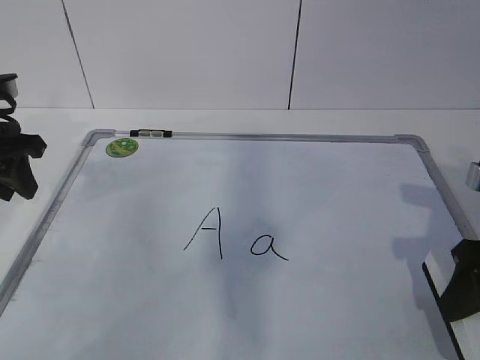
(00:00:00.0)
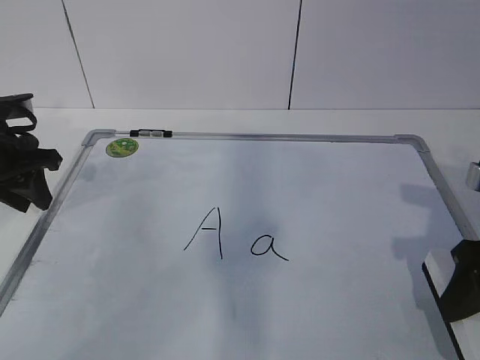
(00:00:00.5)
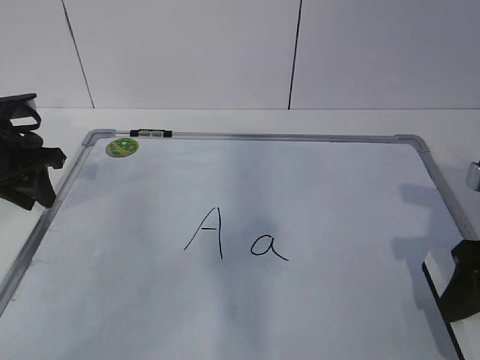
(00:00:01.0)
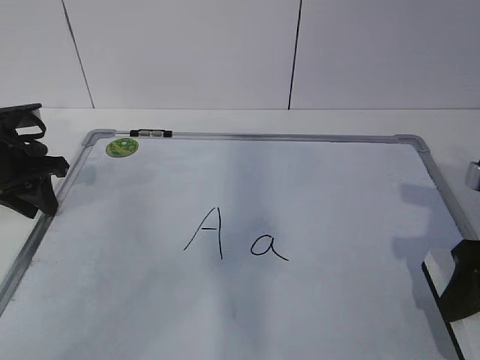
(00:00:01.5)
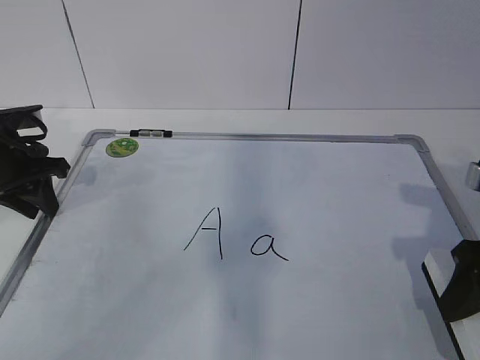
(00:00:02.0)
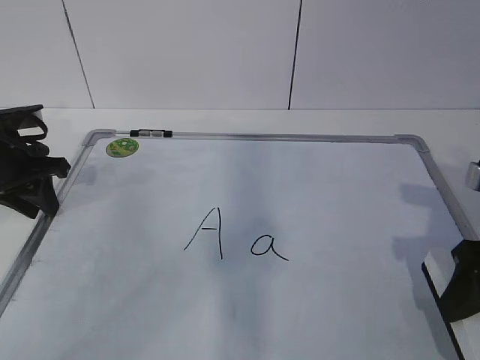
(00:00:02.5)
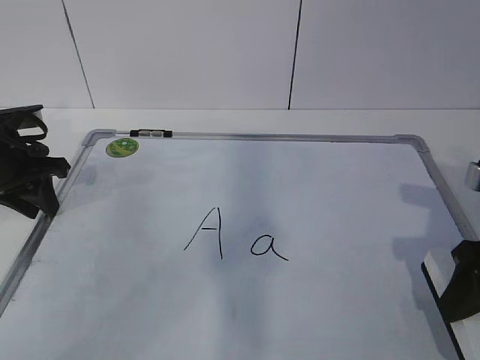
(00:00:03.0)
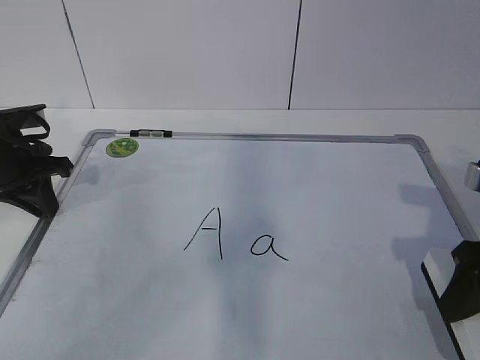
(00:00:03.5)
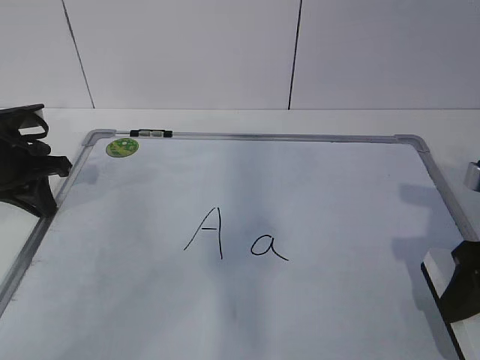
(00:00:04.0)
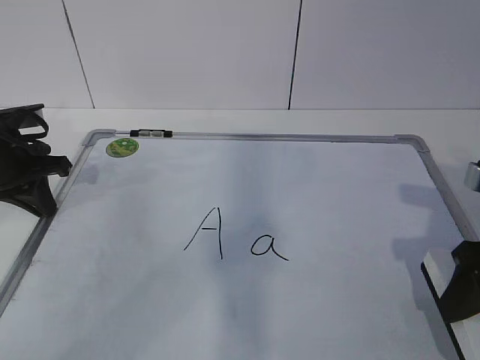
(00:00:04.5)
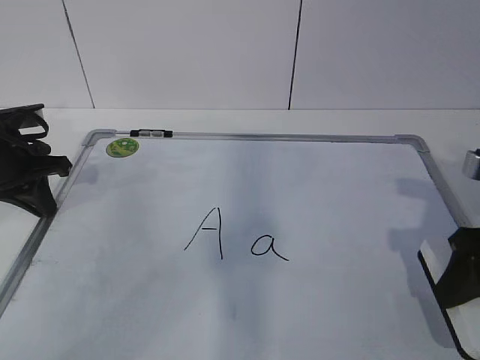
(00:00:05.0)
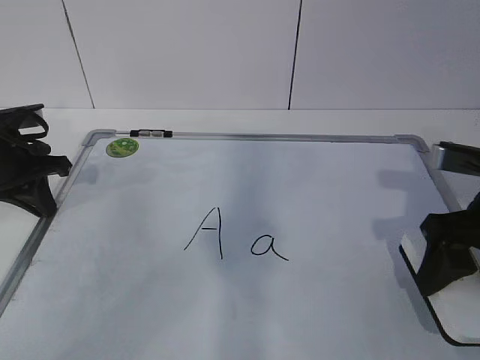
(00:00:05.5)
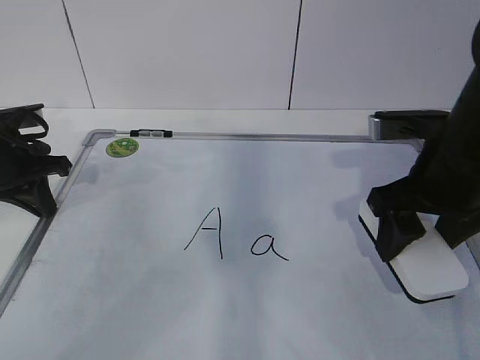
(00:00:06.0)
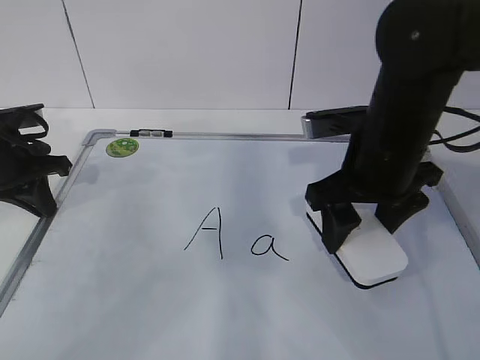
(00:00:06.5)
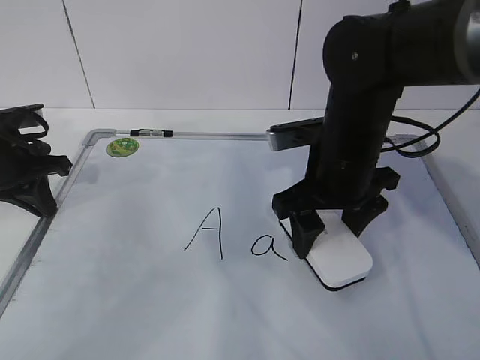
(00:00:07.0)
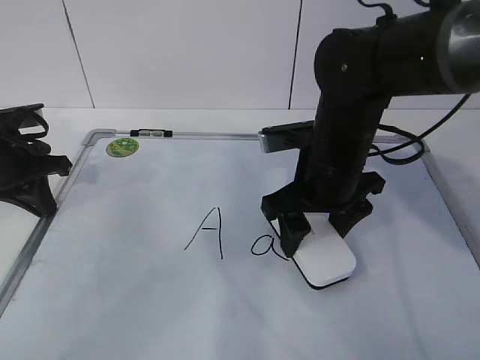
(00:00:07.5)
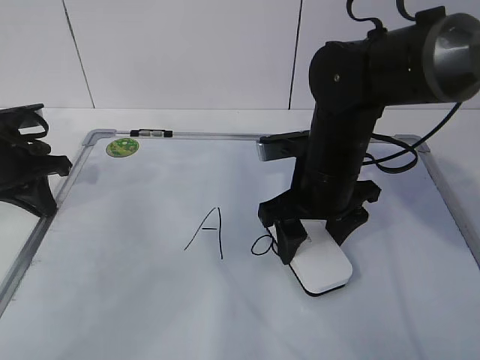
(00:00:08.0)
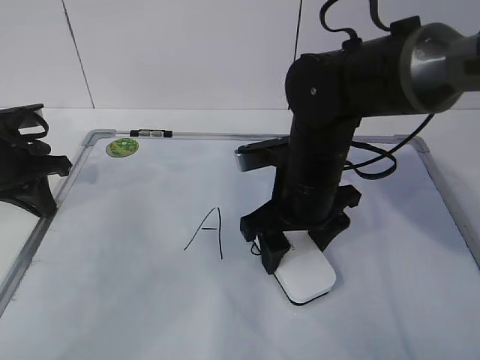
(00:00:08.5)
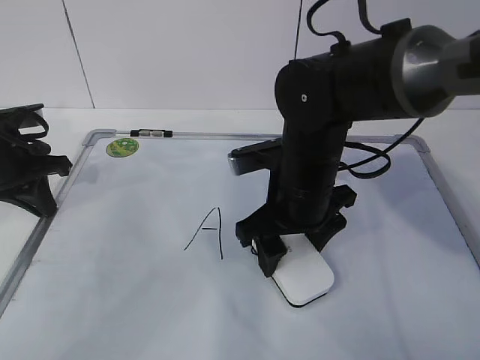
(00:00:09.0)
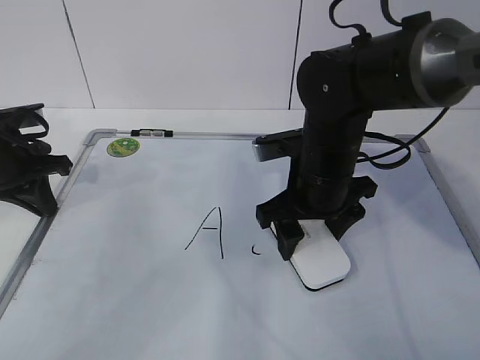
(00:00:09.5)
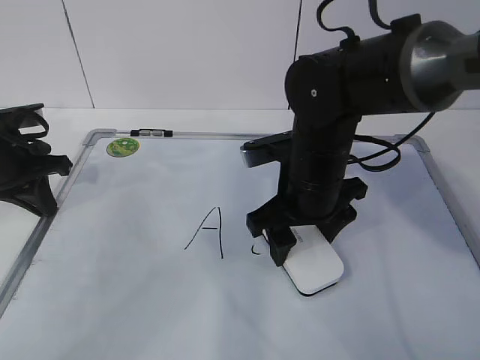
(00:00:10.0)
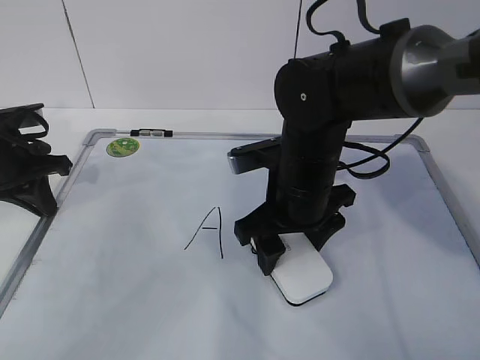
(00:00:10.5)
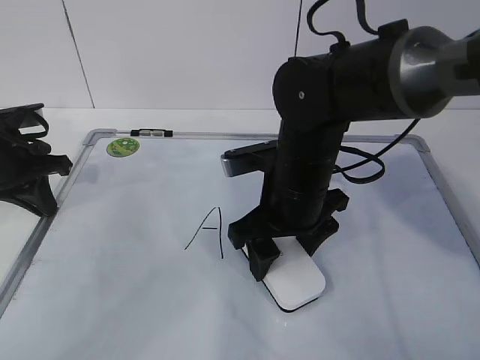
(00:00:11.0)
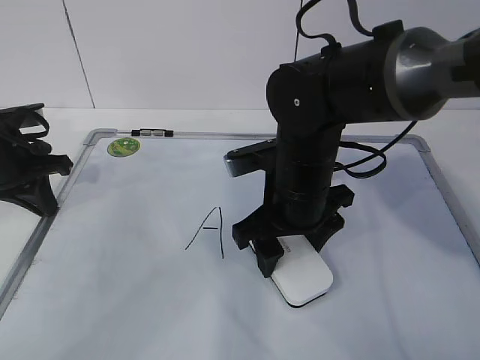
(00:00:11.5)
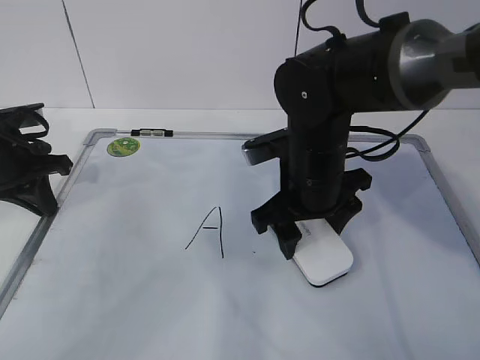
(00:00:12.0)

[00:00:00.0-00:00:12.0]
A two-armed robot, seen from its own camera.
Task of the whole recording: pick up the eraser on the blackboard and erase the letter "a".
Step, 00:00:01.0 to 00:00:07.5: Erase the letter a with your right hand.
00:00:00.0 to 00:00:02.0: The left gripper goes roughly 5 cm downward.
00:00:02.0 to 00:00:04.0: Both grippers stay put.
00:00:04.0 to 00:00:06.0: The right gripper shifts approximately 10 cm forward and to the left.
00:00:06.0 to 00:00:08.0: The right gripper shifts about 10 cm to the left, downward and forward.
00:00:08.0 to 00:00:12.0: The grippers stay close to where they were, moving slightly.

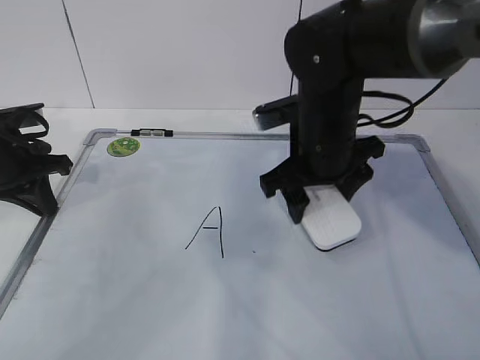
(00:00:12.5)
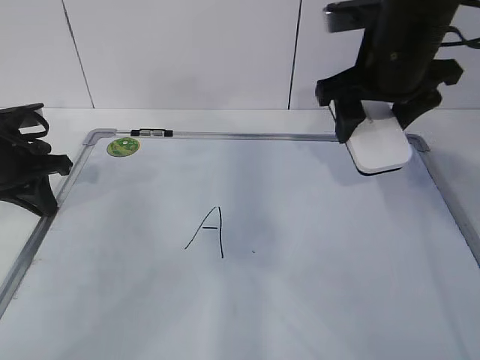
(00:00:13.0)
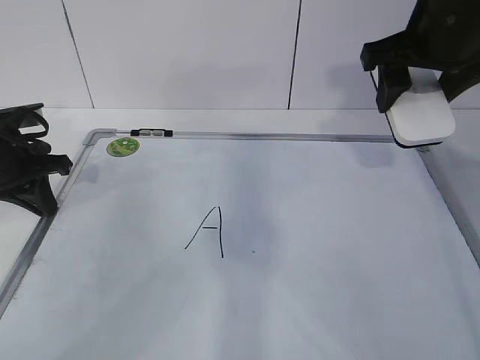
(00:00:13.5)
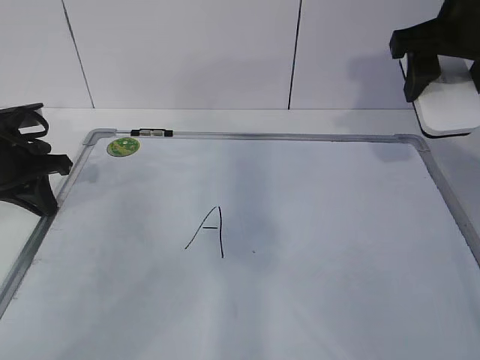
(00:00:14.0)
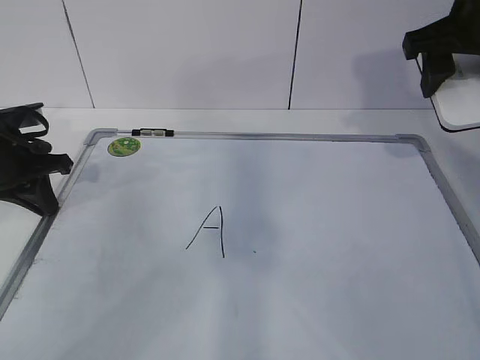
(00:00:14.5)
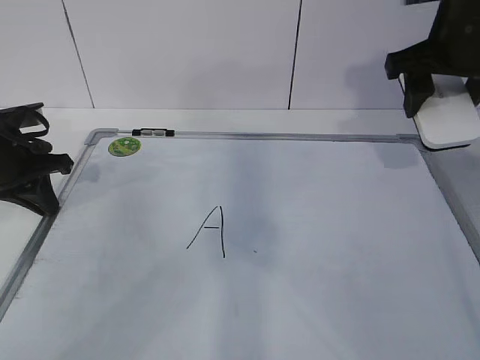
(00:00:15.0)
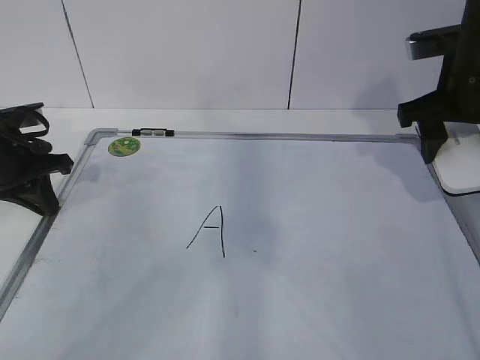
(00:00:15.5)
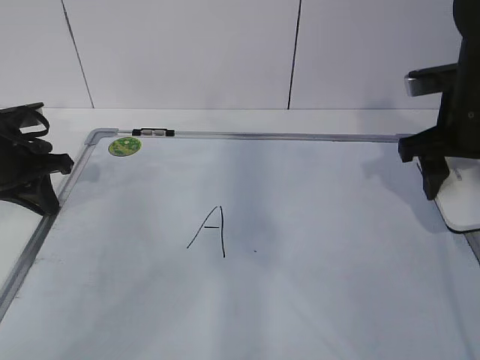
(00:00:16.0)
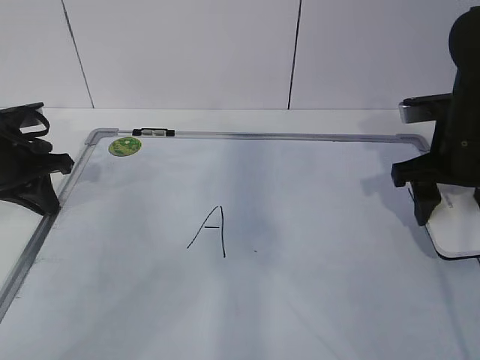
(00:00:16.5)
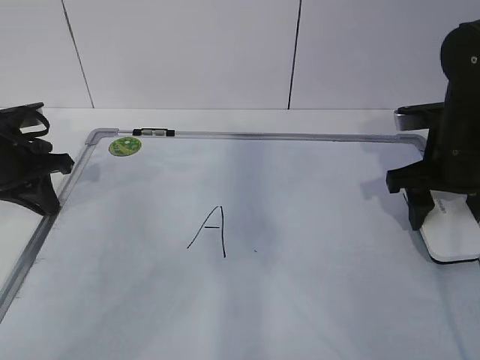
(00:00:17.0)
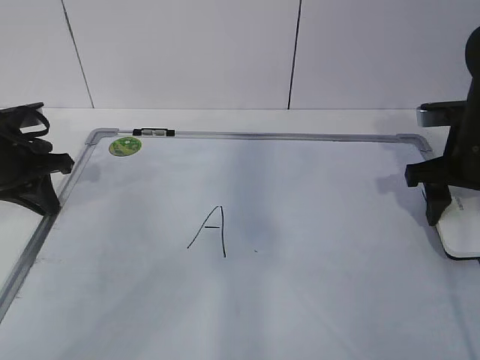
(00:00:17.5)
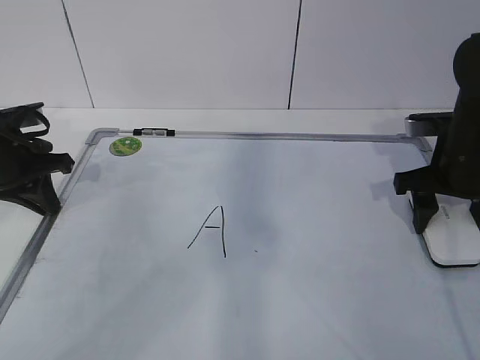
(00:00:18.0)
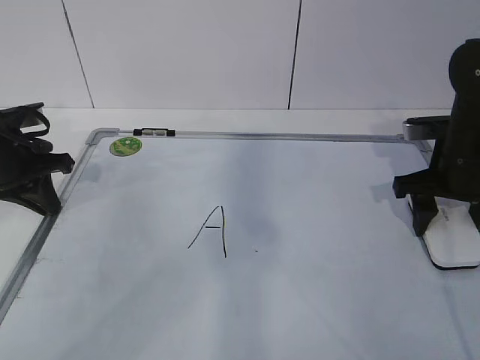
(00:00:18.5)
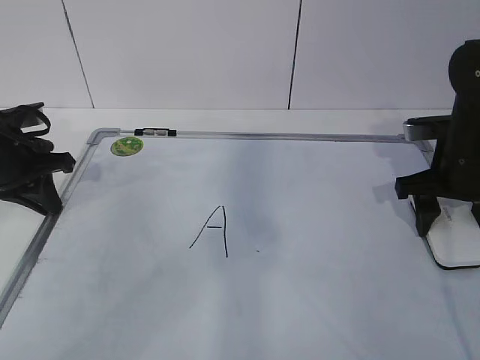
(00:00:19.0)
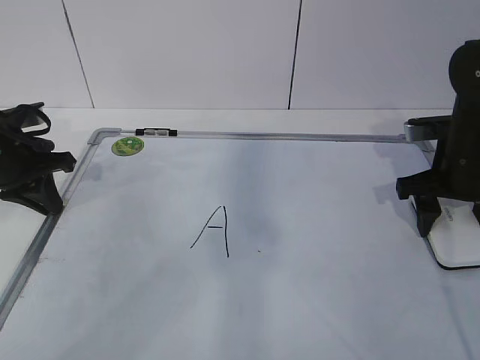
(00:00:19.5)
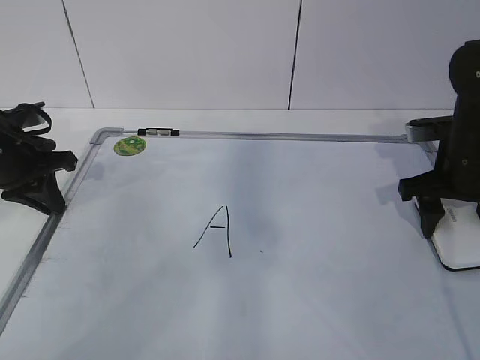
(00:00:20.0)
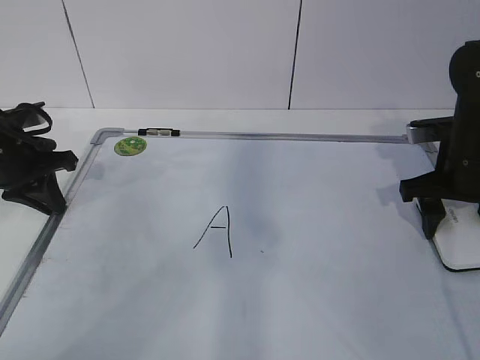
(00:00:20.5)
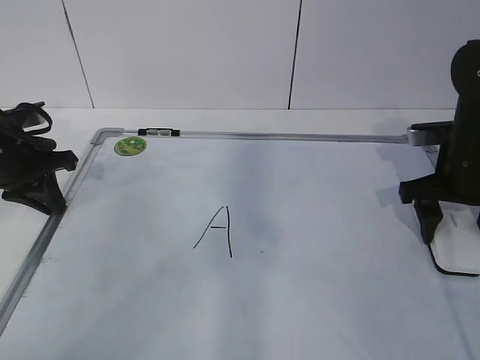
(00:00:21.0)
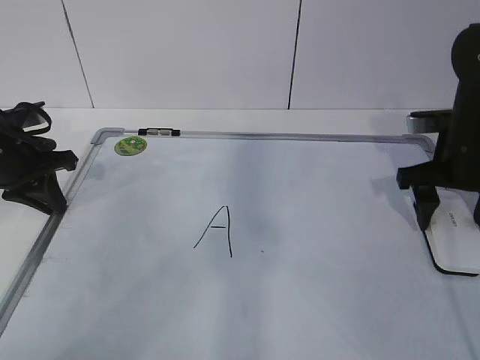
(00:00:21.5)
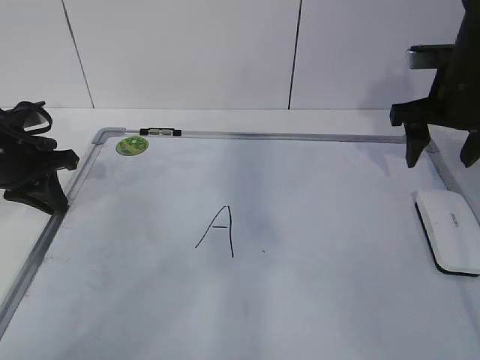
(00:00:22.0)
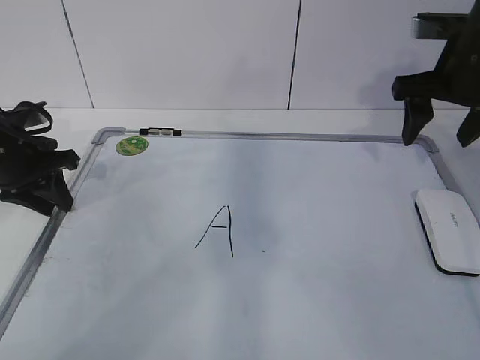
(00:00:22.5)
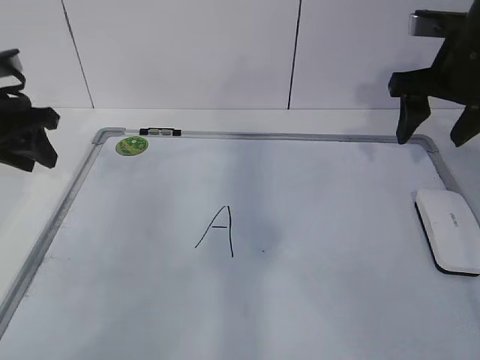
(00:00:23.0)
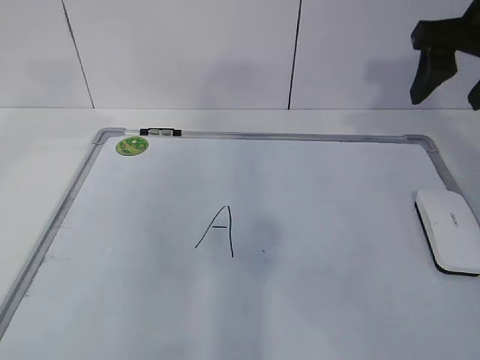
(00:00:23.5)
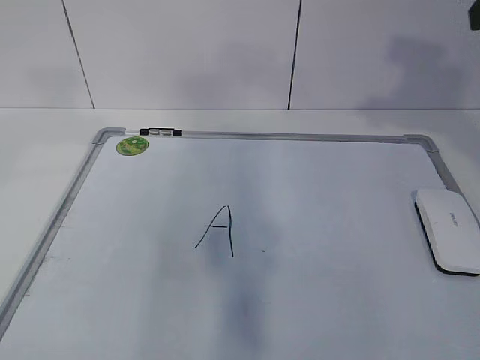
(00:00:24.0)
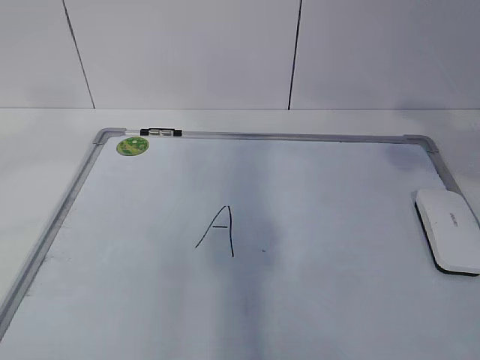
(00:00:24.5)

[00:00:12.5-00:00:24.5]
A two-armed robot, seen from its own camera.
Task of the whole recording: pick up the eraser on the blackboard and erase the letter "a".
Step, 00:00:12.5 to 00:00:15.5: Put down the eraser with your right hand.
00:00:12.5 to 00:00:14.5: The right gripper heads to the right and upward, covering approximately 20 cm.
00:00:14.5 to 00:00:16.5: The right gripper is displaced downward by some 10 cm.
00:00:16.5 to 00:00:18.5: The grippers move only a little.
00:00:18.5 to 00:00:20.5: Both grippers stay about where they are.
00:00:20.5 to 00:00:22.5: The right gripper moves upward, approximately 10 cm, and opens up.
00:00:22.5 to 00:00:24.5: The left gripper shifts some 35 cm upward and backward, and opens, while the right gripper moves backward and upward, some 25 cm, and opens up.

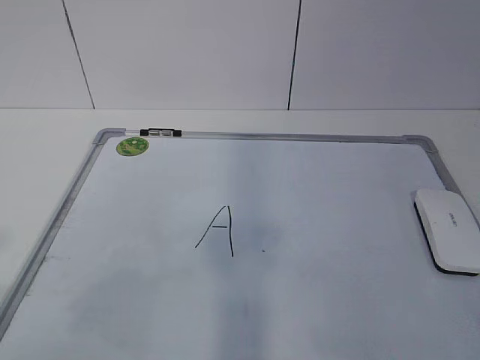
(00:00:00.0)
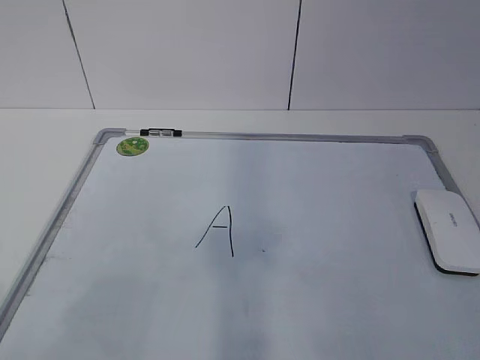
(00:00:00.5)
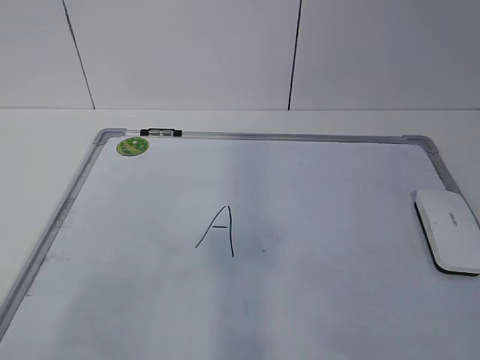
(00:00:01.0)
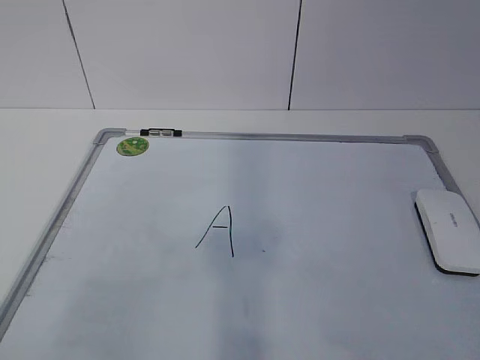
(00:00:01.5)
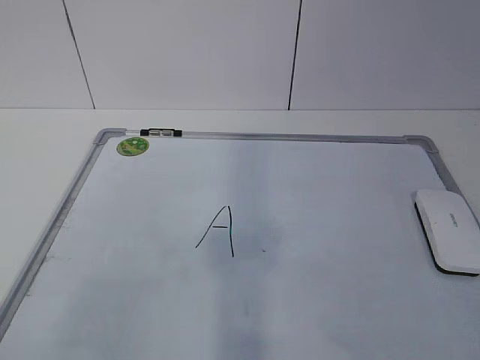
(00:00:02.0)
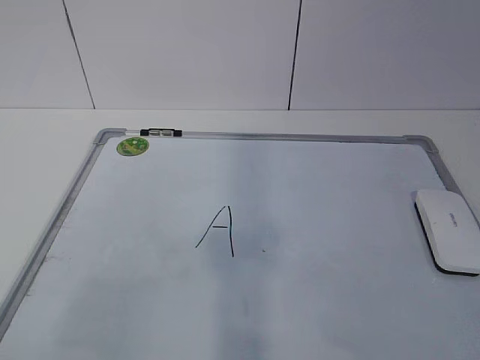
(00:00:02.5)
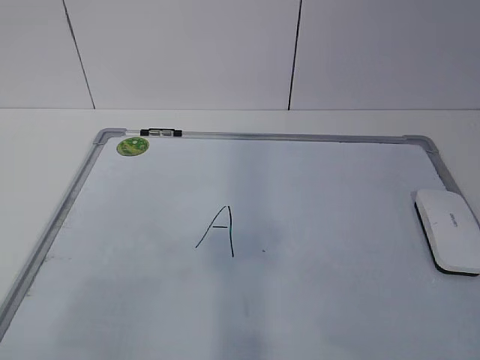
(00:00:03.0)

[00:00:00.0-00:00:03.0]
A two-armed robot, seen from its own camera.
Task of the whole recording: pick up the eraser on the blackboard and erase the letter "a".
00:00:01.5 to 00:00:03.0: Both grippers stay about where they are.
